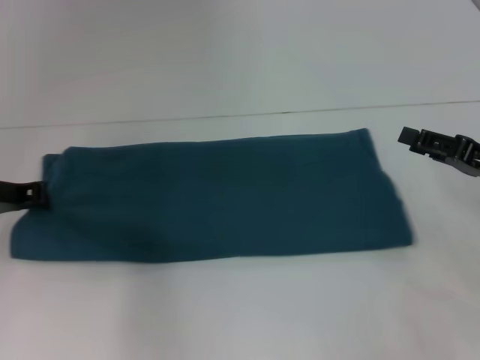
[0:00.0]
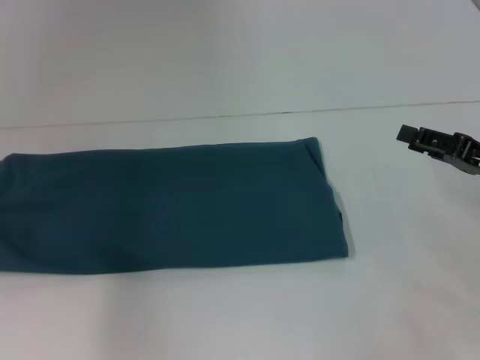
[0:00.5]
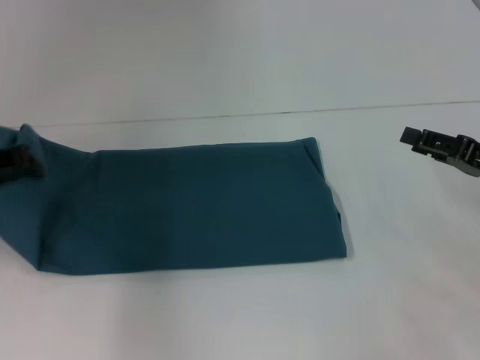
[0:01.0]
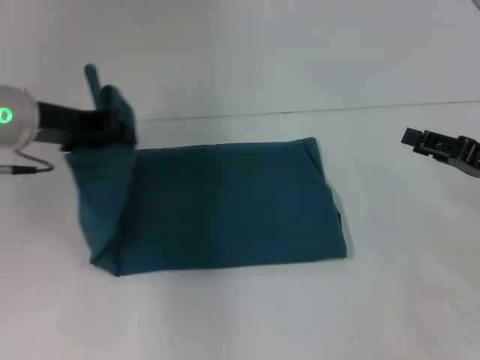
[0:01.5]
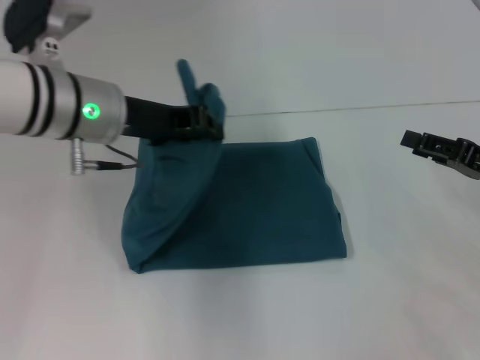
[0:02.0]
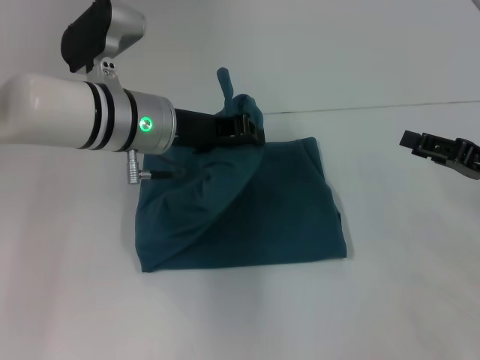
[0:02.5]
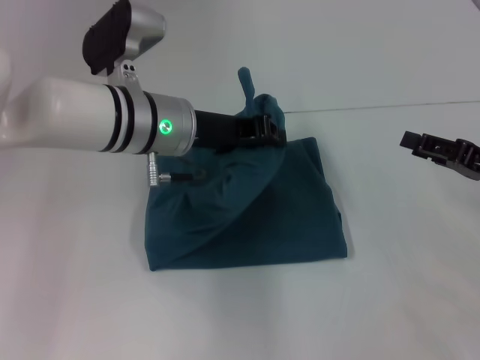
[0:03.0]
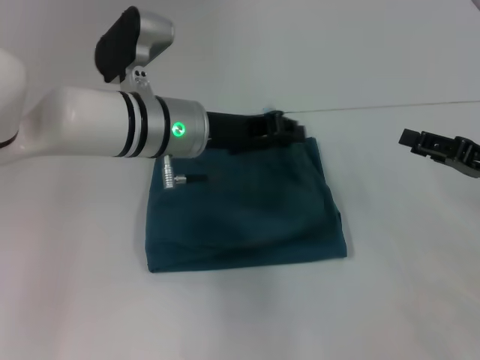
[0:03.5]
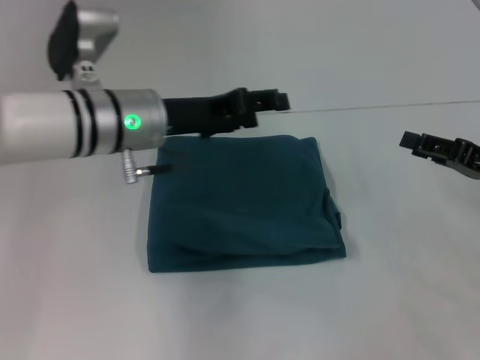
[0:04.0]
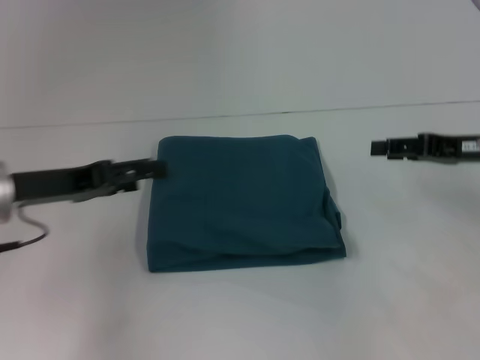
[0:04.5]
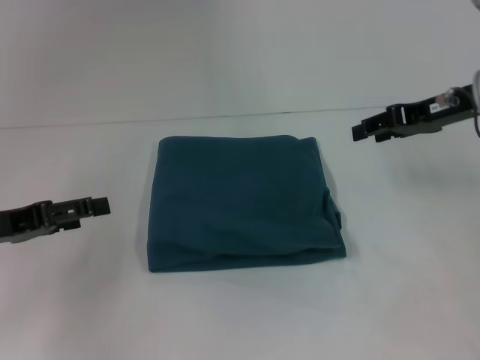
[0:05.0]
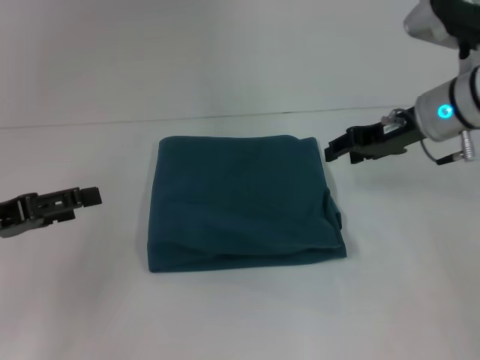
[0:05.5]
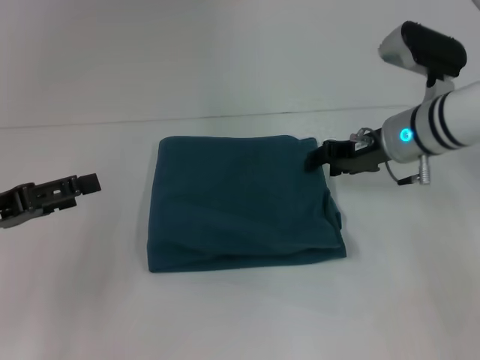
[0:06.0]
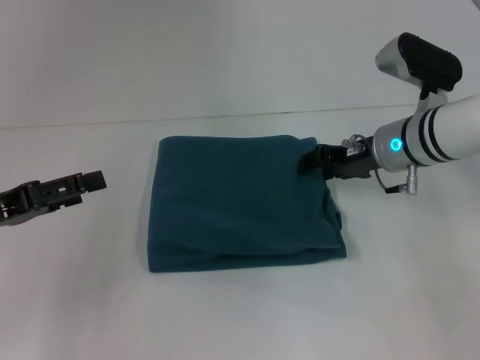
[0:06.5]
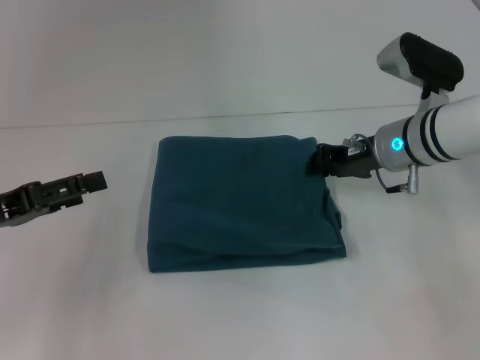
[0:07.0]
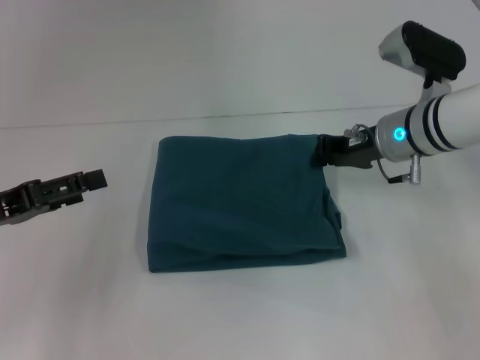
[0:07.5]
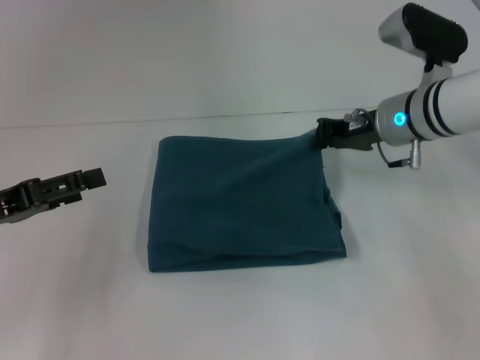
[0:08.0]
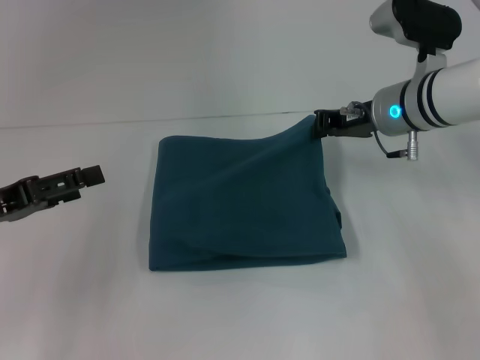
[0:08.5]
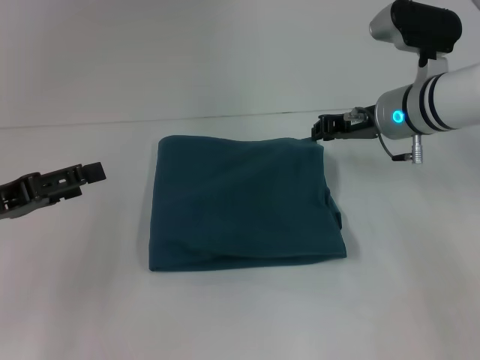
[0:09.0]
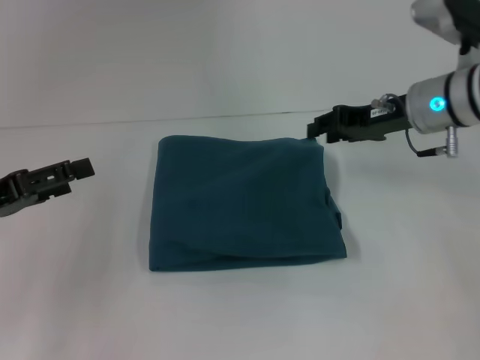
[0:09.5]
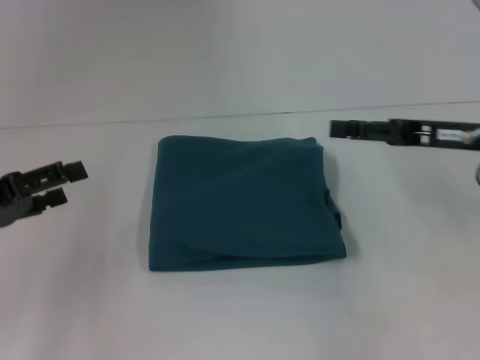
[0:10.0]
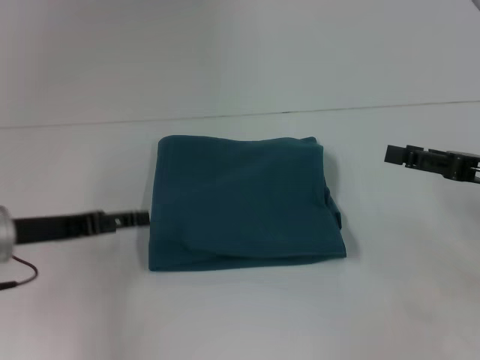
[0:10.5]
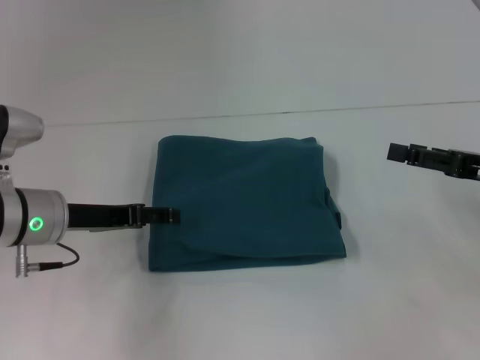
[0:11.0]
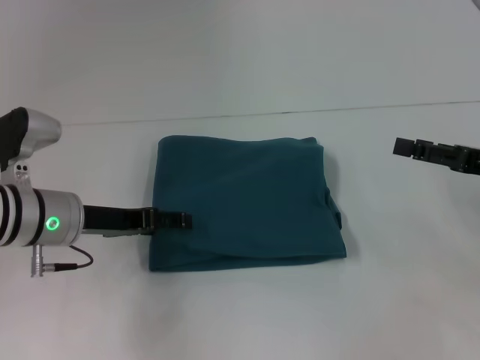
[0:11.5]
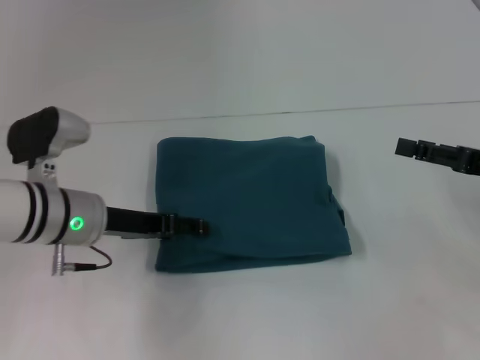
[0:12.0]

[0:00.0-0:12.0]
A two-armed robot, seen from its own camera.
Step, 0:00.0 to 0:03.5: Fold the clothes to the left.
0:00.0 to 0:02.0: The left gripper goes roughly 15 cm to the right and upward.
0:02.0 to 0:04.0: The left gripper opens its fingers.
0:04.0 to 0:06.0: The right gripper is displaced to the left and forward by some 20 cm; the left gripper shifts approximately 20 cm to the left and backward.
0:06.0 to 0:08.0: The right gripper closes.
0:08.0 to 0:10.0: The right gripper travels to the right and backward by roughly 10 cm, and opens up.
0:10.0 to 0:12.0: The right gripper is displaced to the right by roughly 5 cm. The left gripper goes approximately 15 cm to the right and forward.

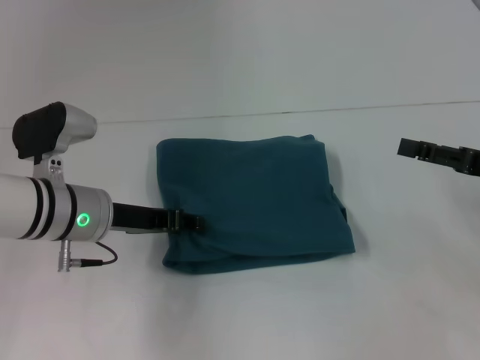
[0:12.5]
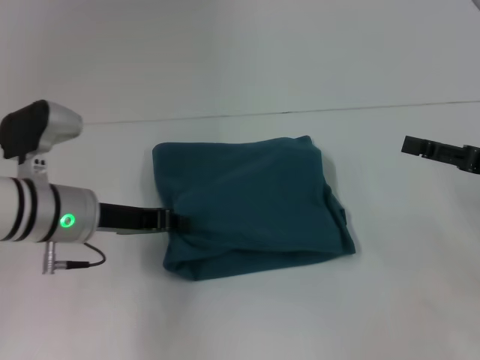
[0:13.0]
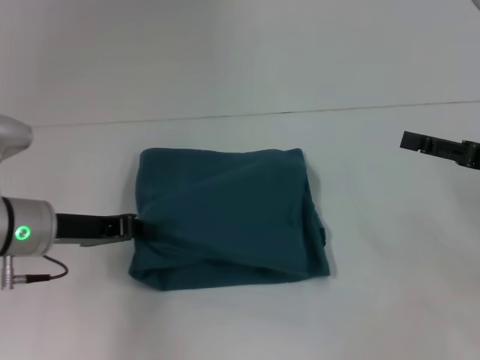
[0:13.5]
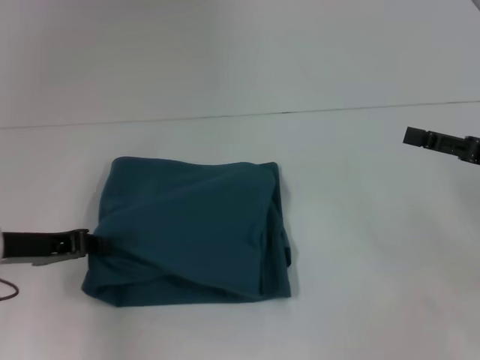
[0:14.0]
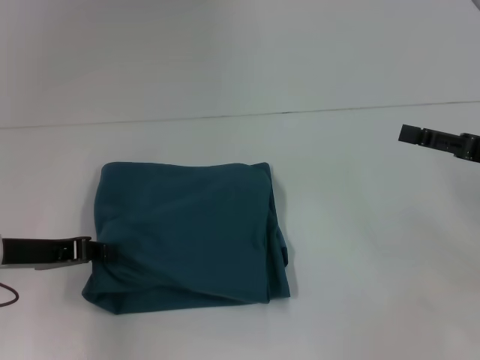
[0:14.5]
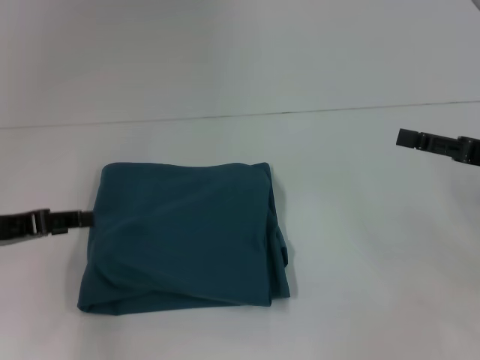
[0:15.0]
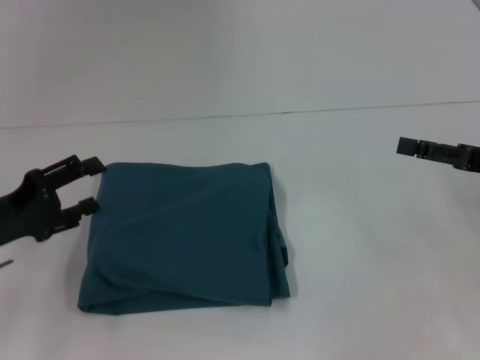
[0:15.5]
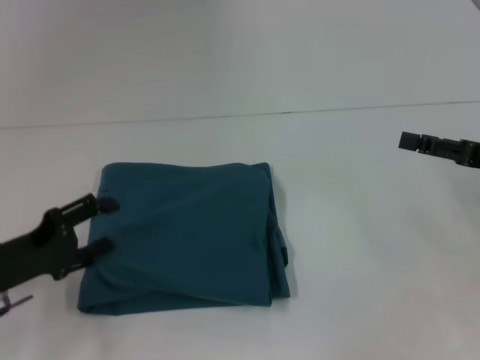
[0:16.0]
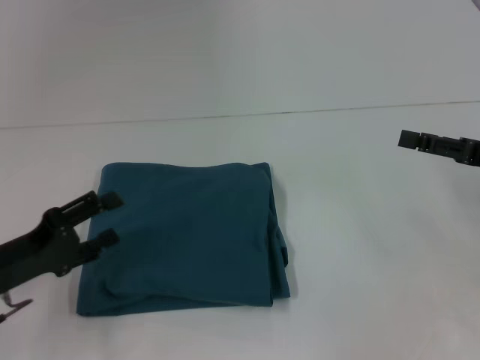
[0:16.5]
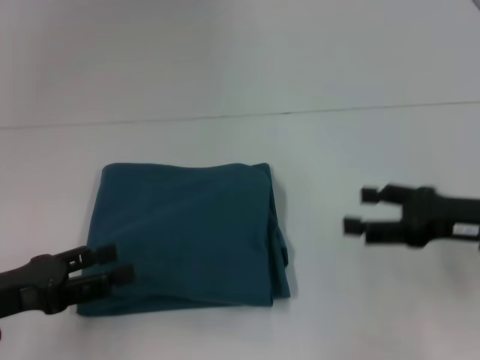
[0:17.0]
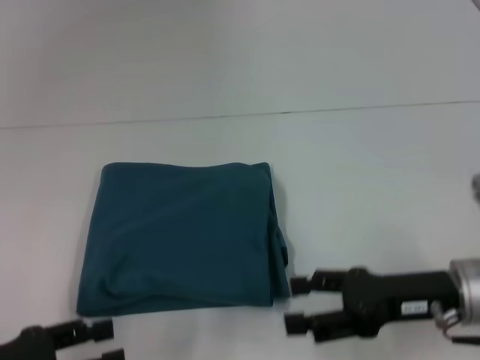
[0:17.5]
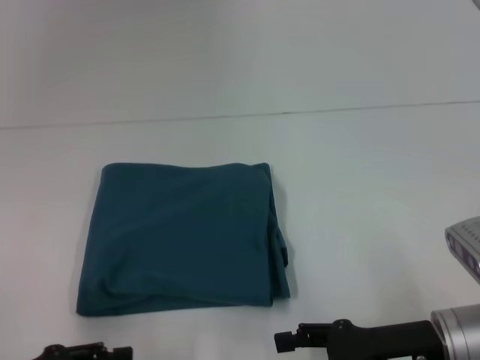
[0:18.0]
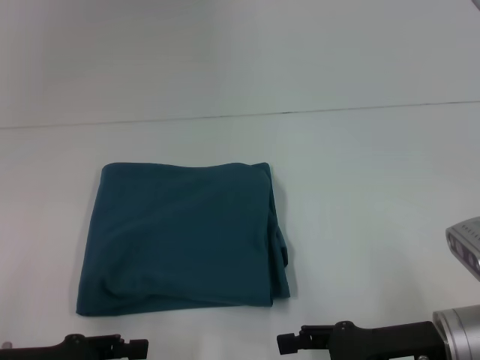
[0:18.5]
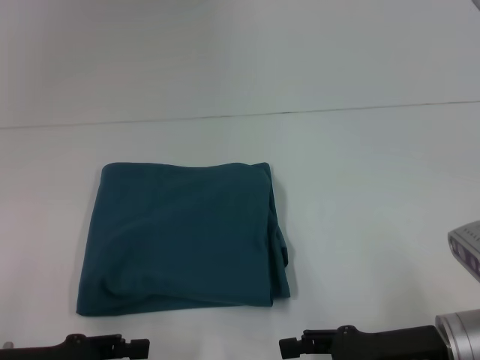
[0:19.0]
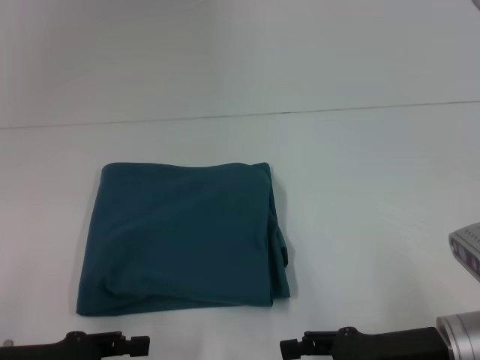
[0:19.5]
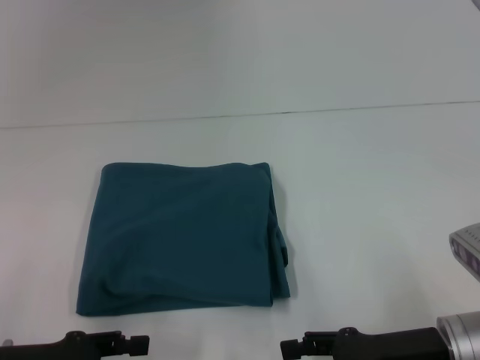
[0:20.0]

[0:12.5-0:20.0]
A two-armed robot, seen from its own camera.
0:12.5 to 0:14.5: The left gripper heads to the left, covering roughly 10 cm, and closes up.
0:14.5 to 0:16.5: The left gripper changes place by approximately 5 cm, and opens up.
0:16.5 to 0:18.0: The right gripper is displaced to the left, downward and backward by about 15 cm, while the left gripper travels backward by roughly 5 cm.
0:18.0 to 0:20.0: The grippers stay close to where they were, moving slightly.

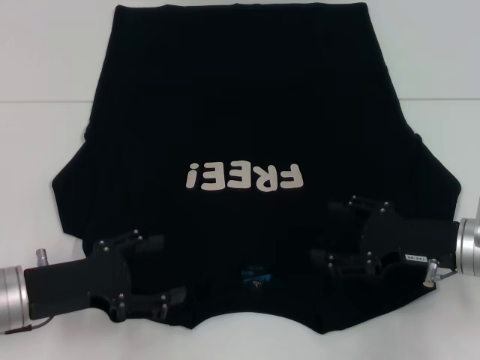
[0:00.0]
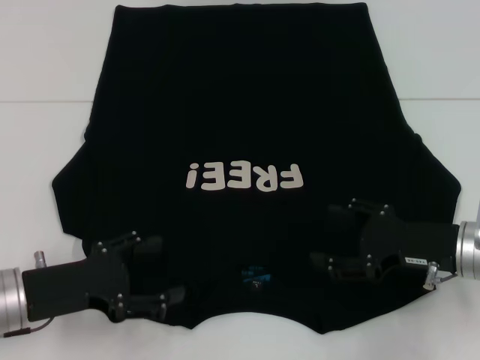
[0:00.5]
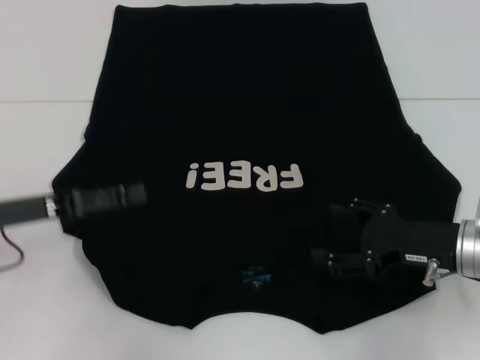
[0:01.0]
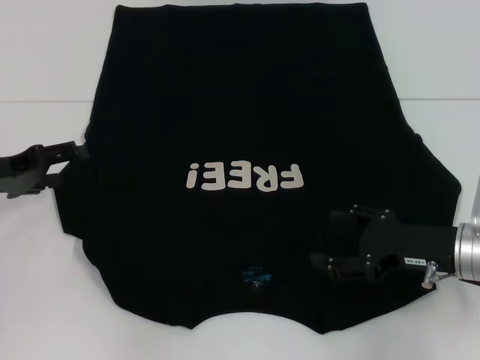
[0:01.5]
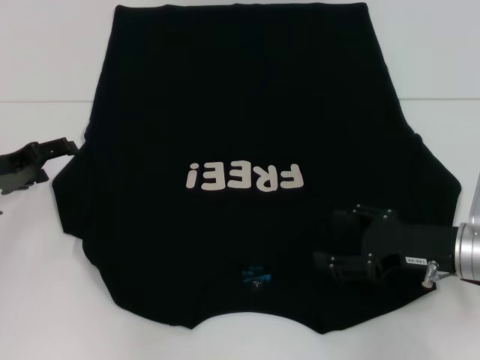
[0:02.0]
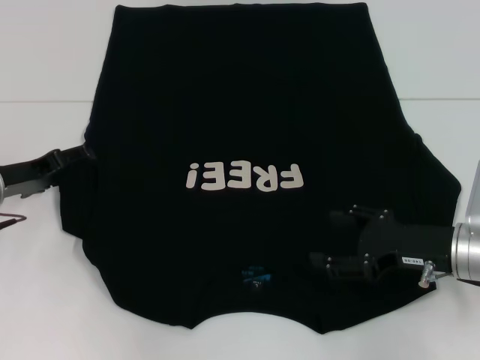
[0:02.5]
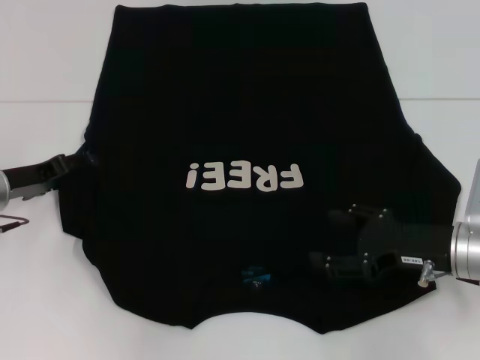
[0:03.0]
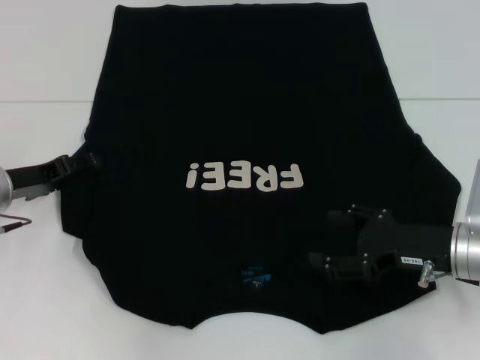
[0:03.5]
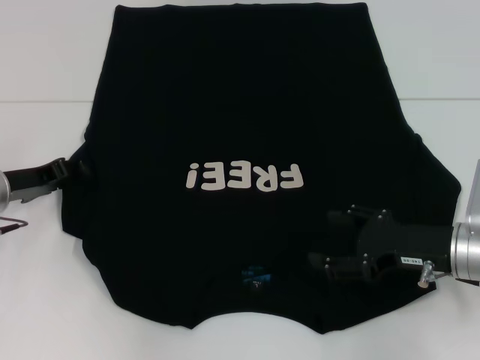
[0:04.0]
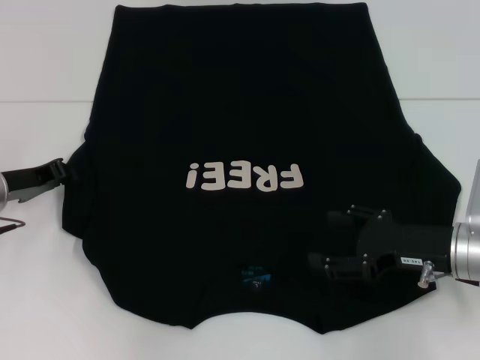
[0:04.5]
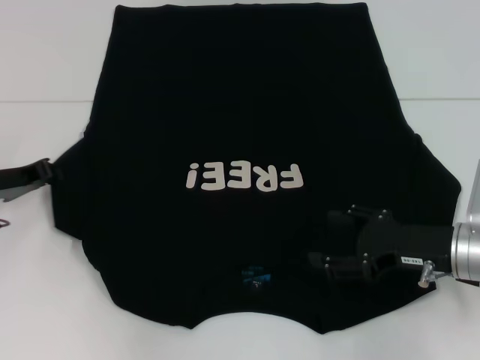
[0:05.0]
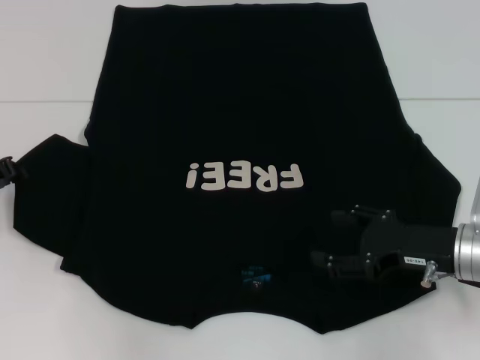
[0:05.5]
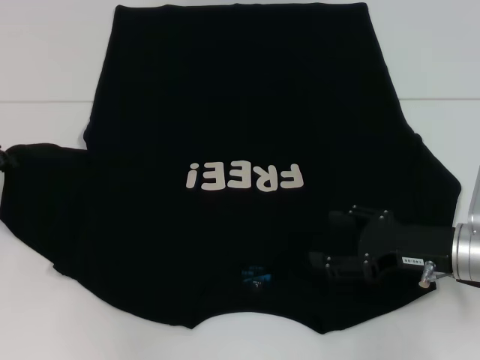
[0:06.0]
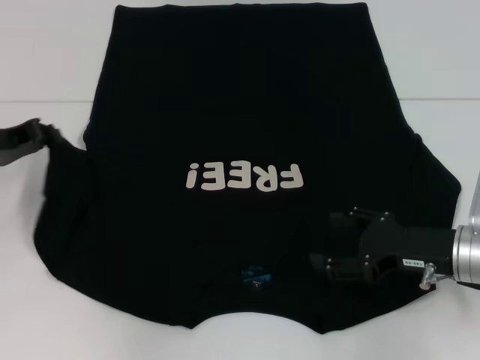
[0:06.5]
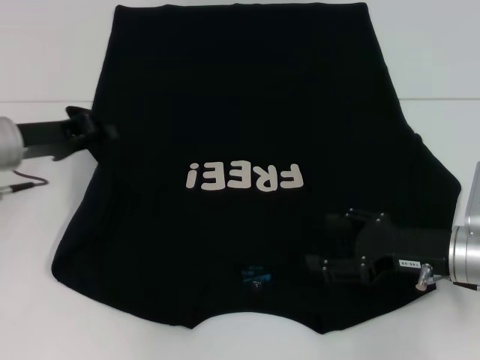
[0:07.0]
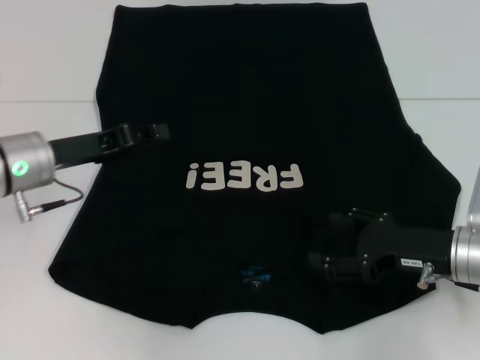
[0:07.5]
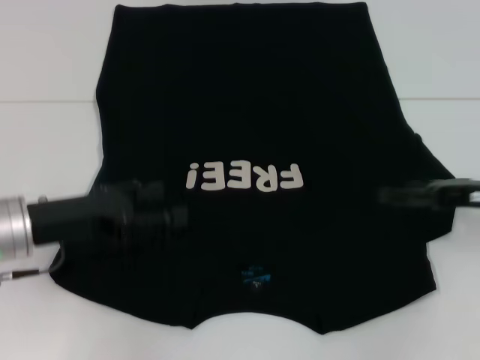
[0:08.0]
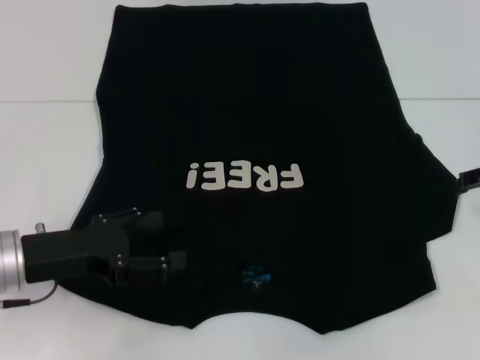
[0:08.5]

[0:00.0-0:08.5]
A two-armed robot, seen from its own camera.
Step, 0:00.0 to 0:07.0: Fold the bottom left sleeve with your left hand.
0:00.0 to 0:02.0: The left gripper travels forward and to the left by roughly 15 cm.
0:02.0 to 0:04.0: The grippers stay close to where they were, moving slightly.
0:04.0 to 0:06.5: The left gripper heads upward, covering about 5 cm, and closes up.
0:06.5 to 0:08.5: The right gripper heads upward, to the right and forward, covering approximately 15 cm, while the left gripper travels backward and to the right by approximately 10 cm, and opens up.
